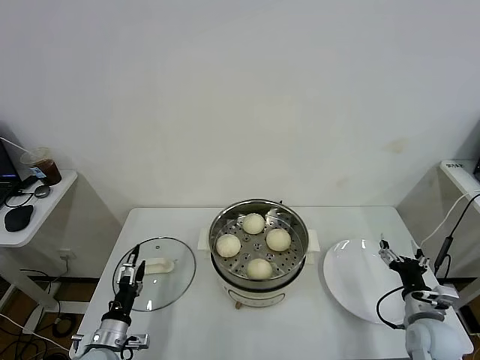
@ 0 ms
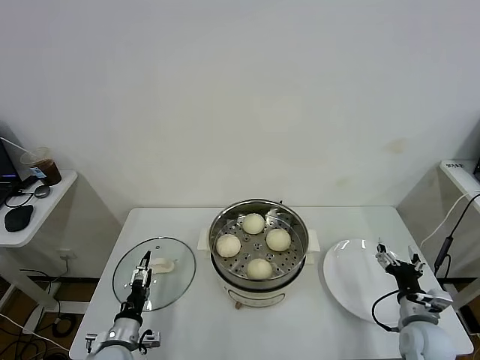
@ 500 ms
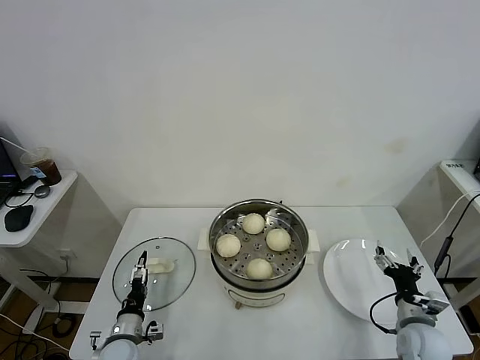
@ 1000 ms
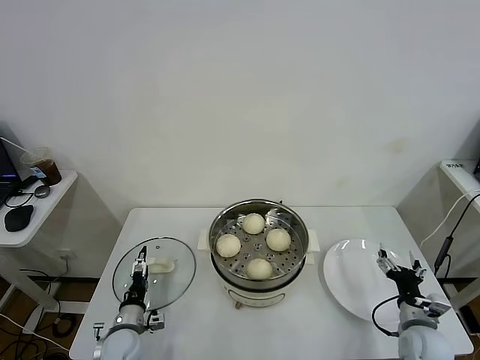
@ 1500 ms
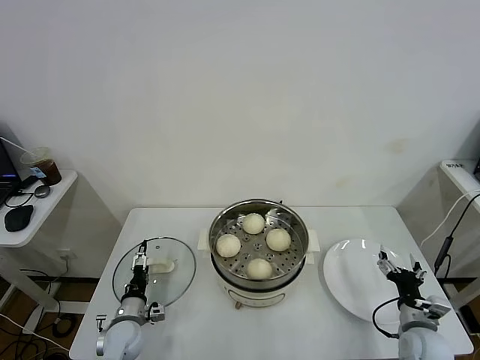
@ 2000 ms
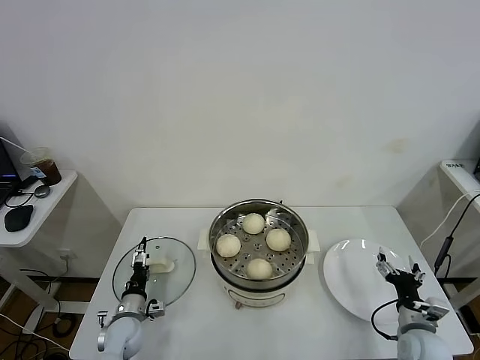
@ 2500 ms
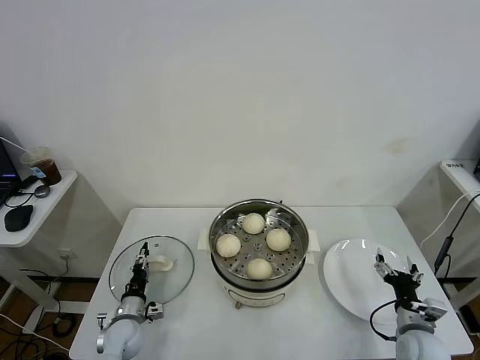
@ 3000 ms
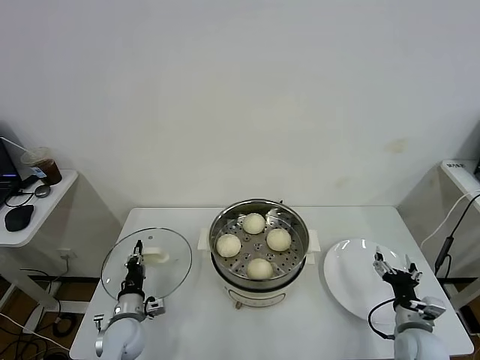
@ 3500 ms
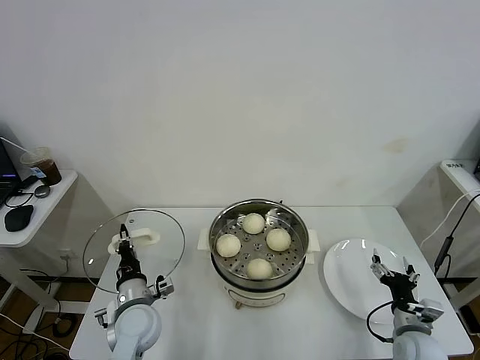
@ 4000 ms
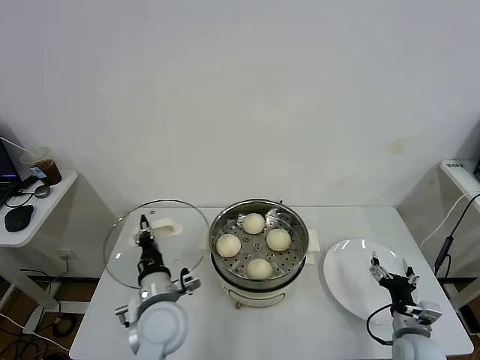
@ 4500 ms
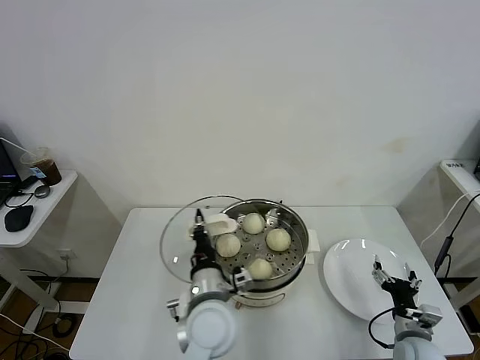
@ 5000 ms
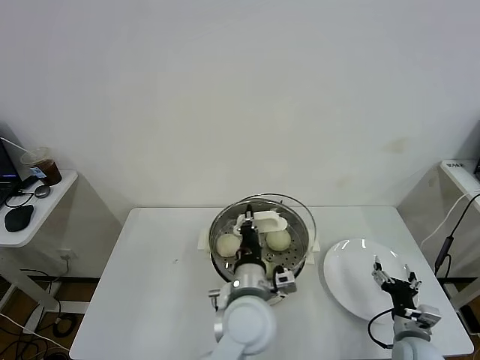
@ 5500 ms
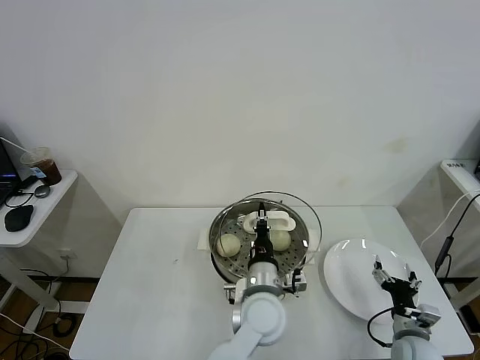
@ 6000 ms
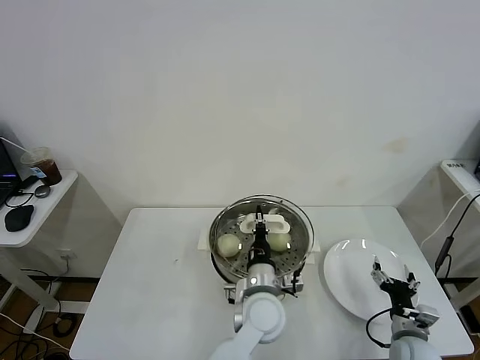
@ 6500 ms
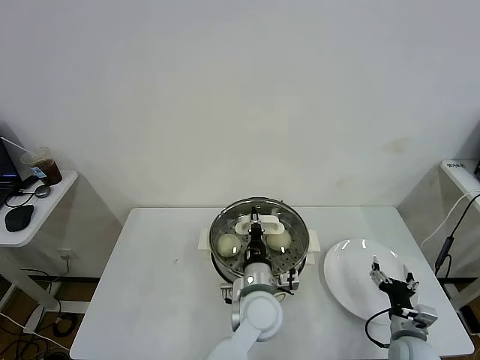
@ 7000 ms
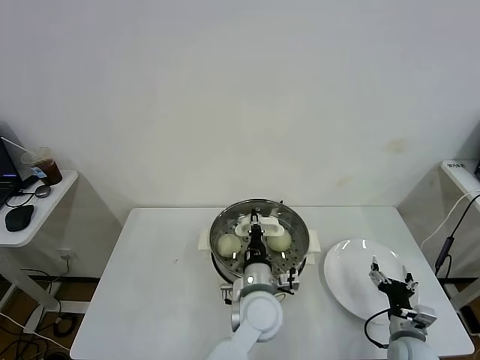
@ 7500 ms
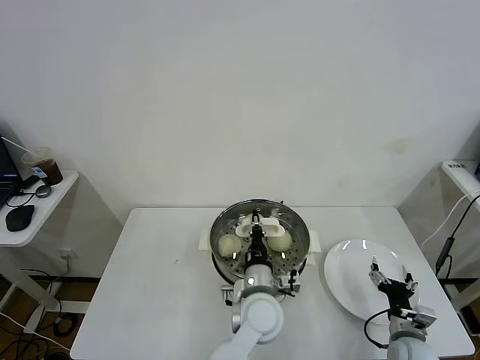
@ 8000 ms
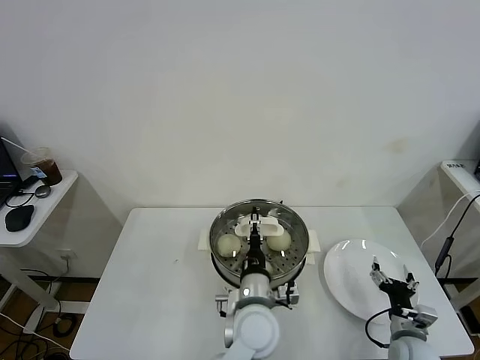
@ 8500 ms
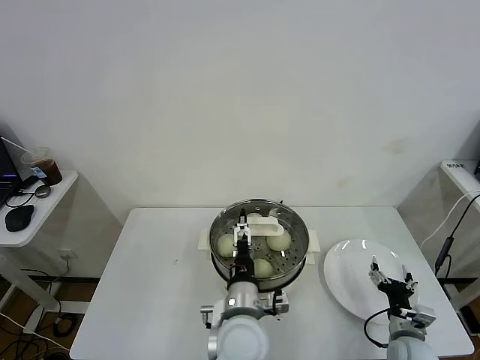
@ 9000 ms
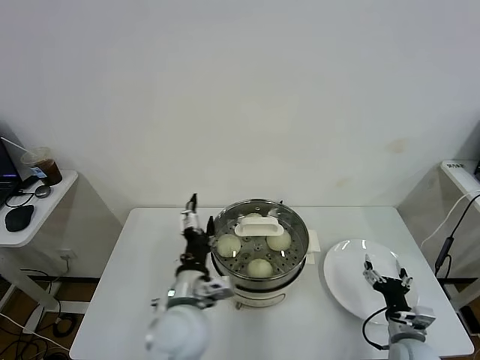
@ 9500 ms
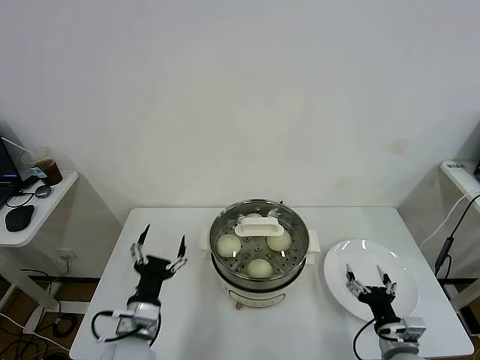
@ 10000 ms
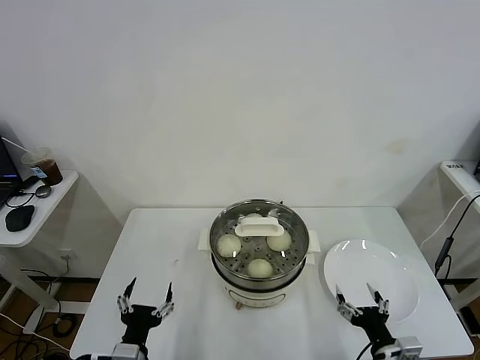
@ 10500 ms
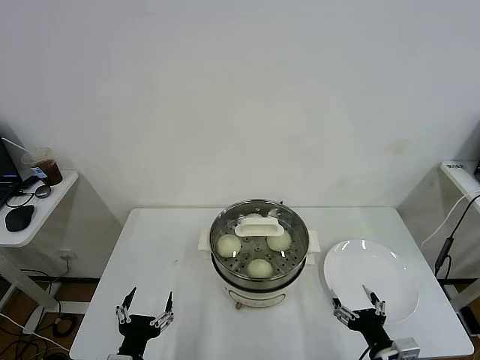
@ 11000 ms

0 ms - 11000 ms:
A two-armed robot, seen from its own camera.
Task of the whole recording: take steamed baozi put them in steamer.
Step, 0 ms - 3500 ms: Grasp the pot lid with left gripper.
Step, 4000 ms - 8000 ms: Place the pot lid on the steamer with left gripper.
0 ms - 2000 ms: The left gripper moves forward, about 5 cm.
2000 ms - 3500 ms: The left gripper closes its fingers.
3500 ms - 5500 ms: The left gripper goes roughly 35 cm to the right and upward.
5500 ms - 7500 ms: The left gripper shifts some 5 cm downward.
7500 ms - 9000 ms: The left gripper travels backward by about 5 cm, and opens up.
9000 ms - 11000 ms: The left gripper shifts roughly 25 cm to the left and backward, while the right gripper goes approximately 15 cm backward, upward and to the left.
